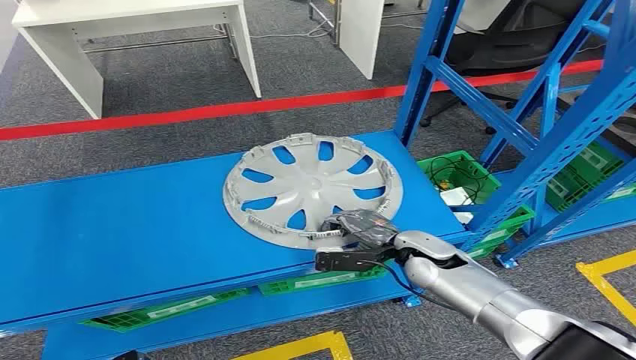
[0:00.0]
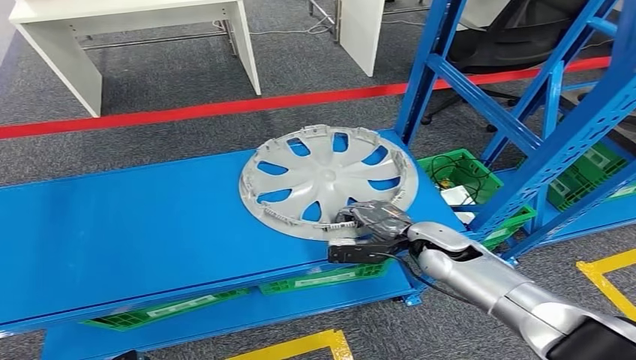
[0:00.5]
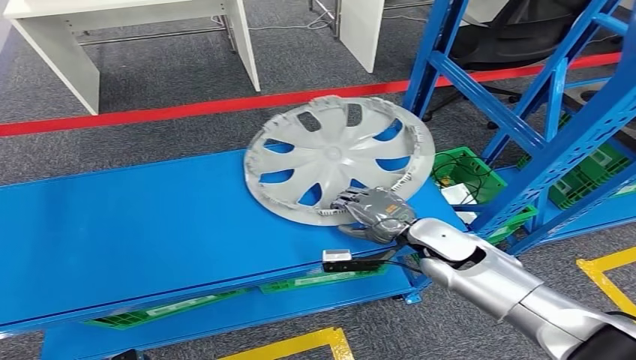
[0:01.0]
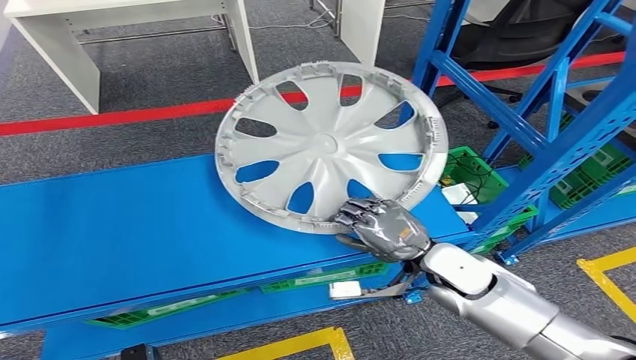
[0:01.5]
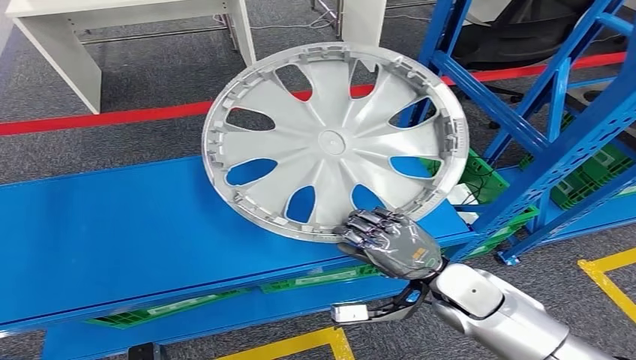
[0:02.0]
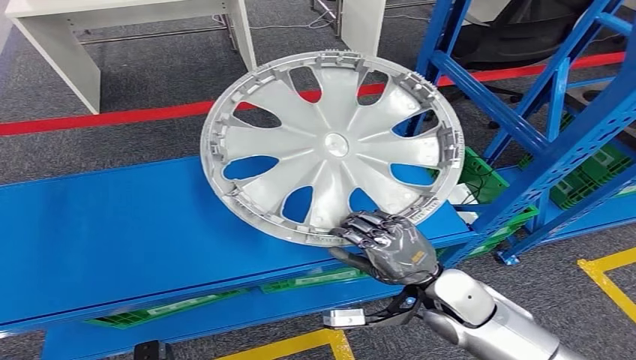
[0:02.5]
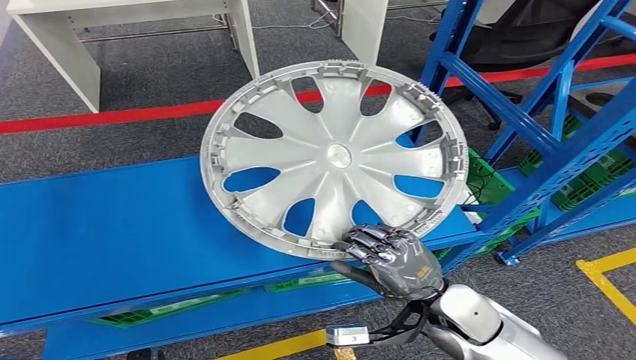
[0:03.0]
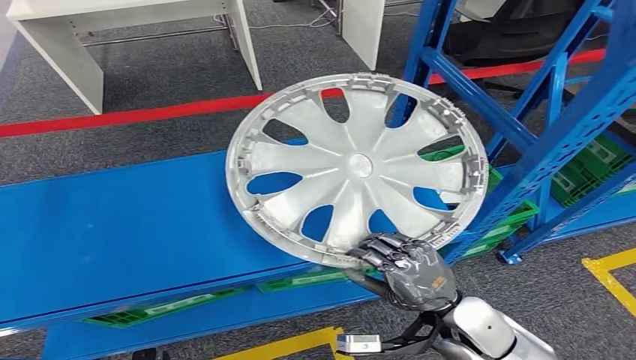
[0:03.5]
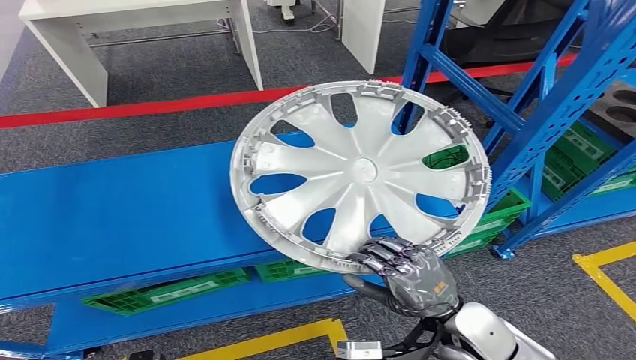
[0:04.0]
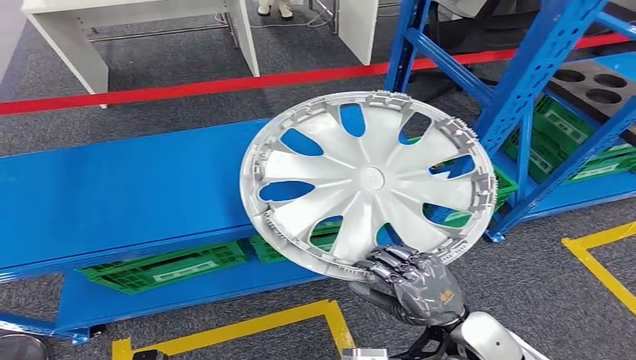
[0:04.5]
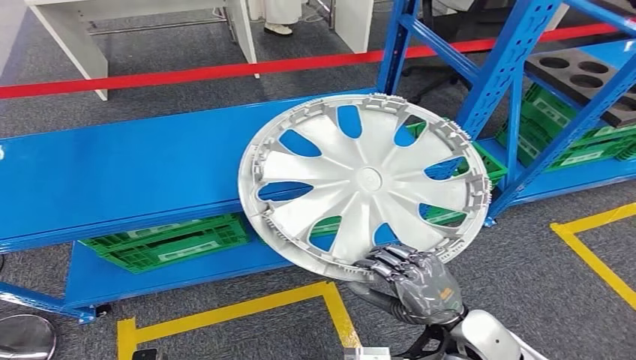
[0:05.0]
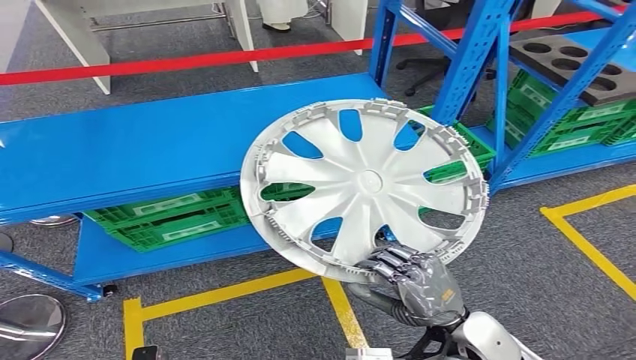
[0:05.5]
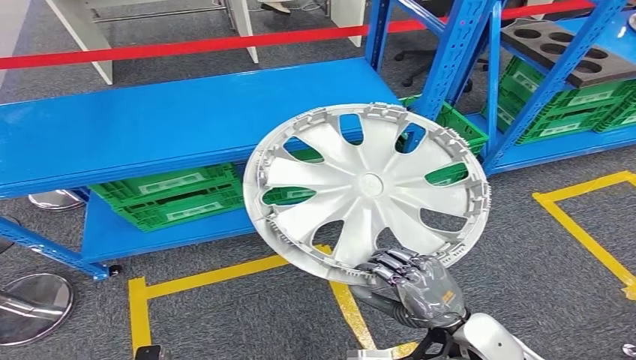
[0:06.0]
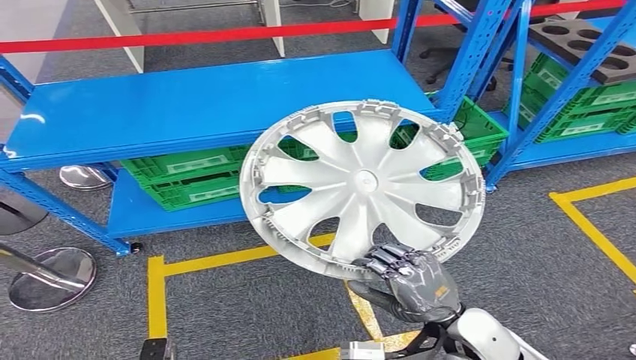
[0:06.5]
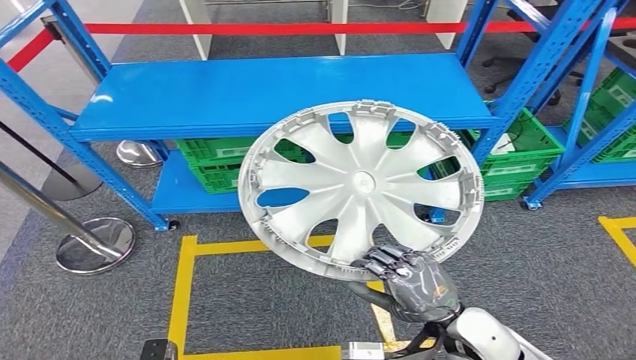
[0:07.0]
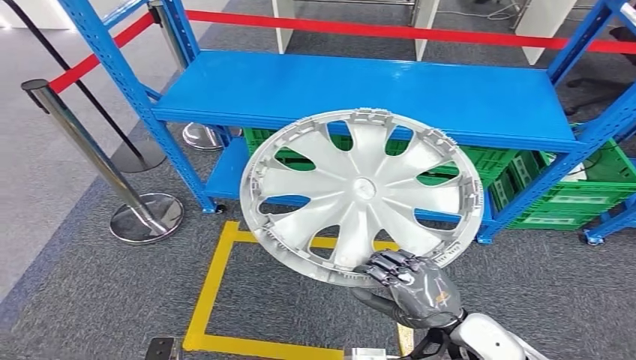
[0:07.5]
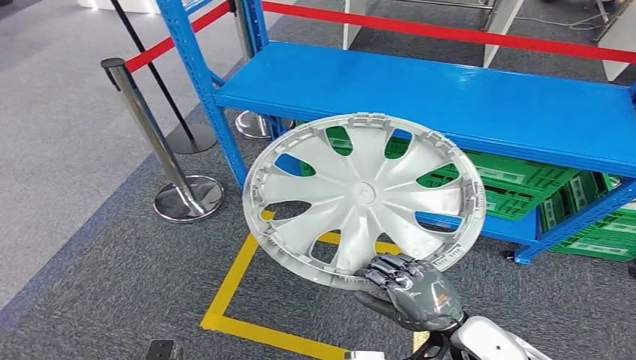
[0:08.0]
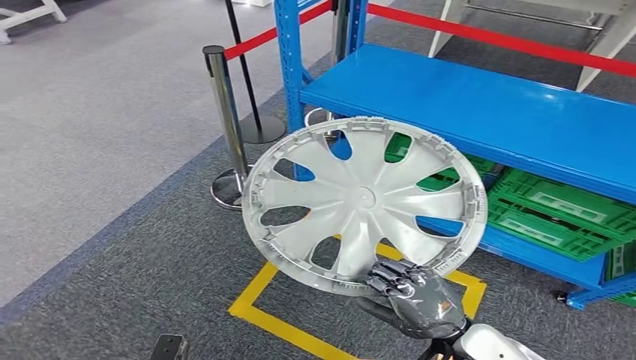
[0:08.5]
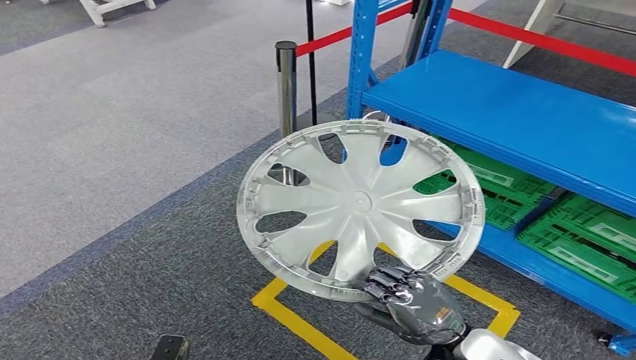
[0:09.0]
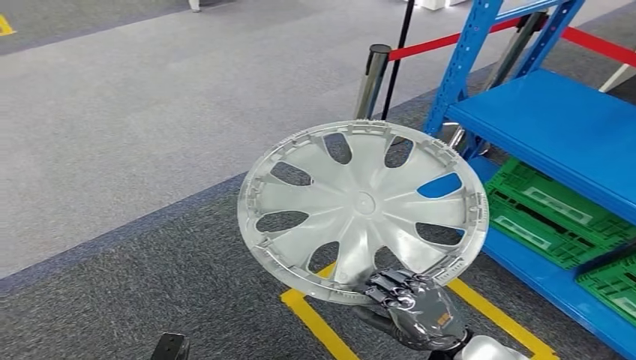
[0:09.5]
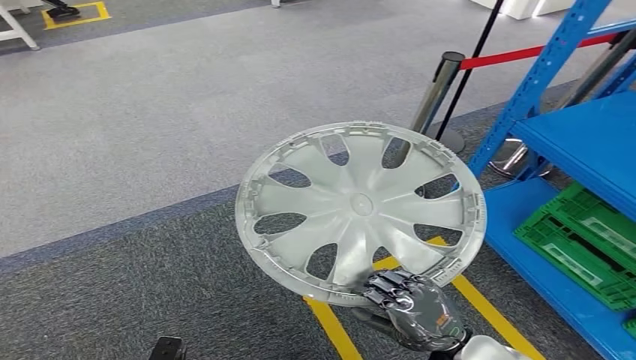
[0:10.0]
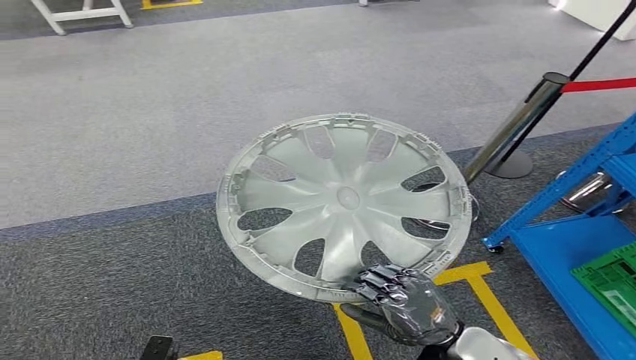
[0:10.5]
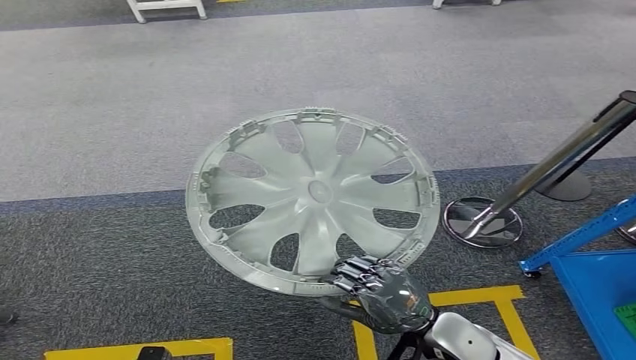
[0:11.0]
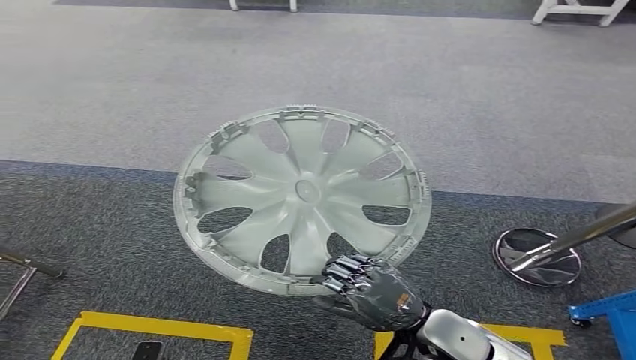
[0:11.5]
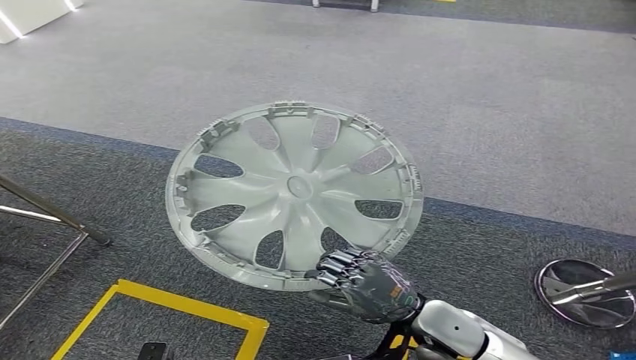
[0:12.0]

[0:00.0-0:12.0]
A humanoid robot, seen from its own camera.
Step, 0:00.0 to 0:02.0: Take small components from the rack.

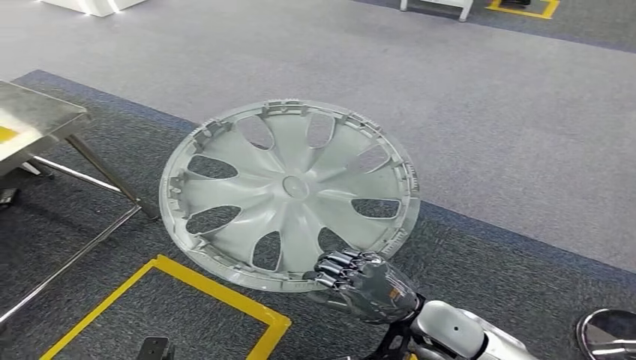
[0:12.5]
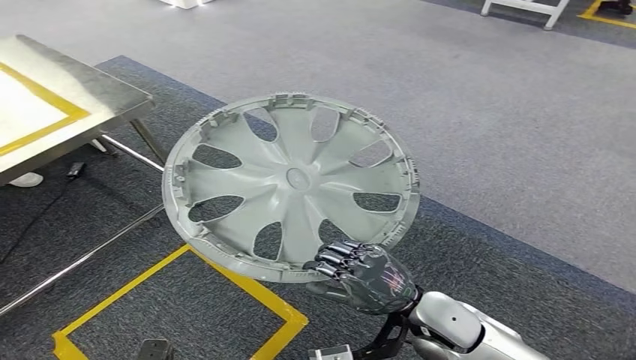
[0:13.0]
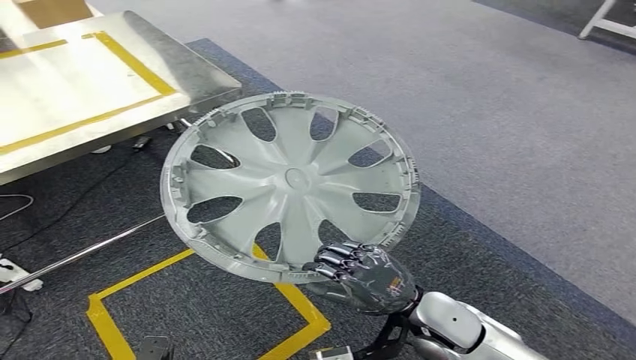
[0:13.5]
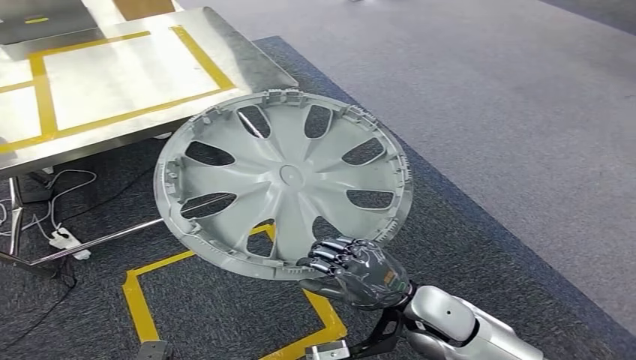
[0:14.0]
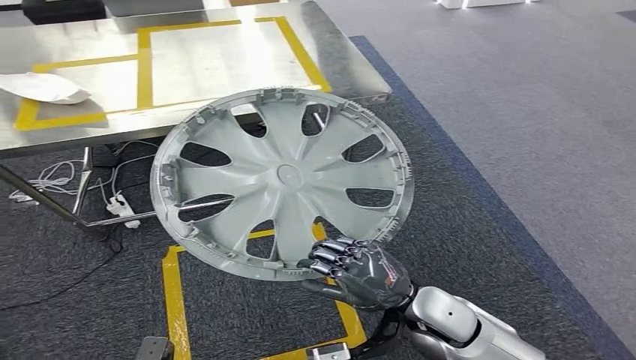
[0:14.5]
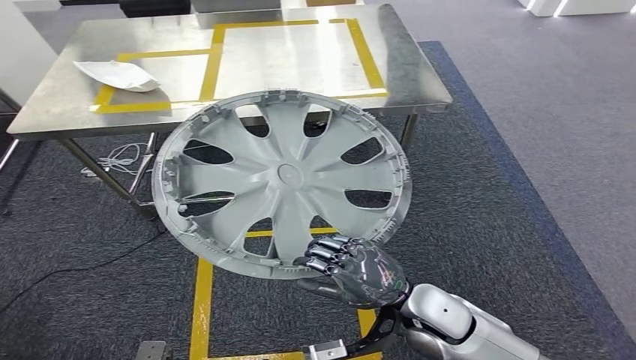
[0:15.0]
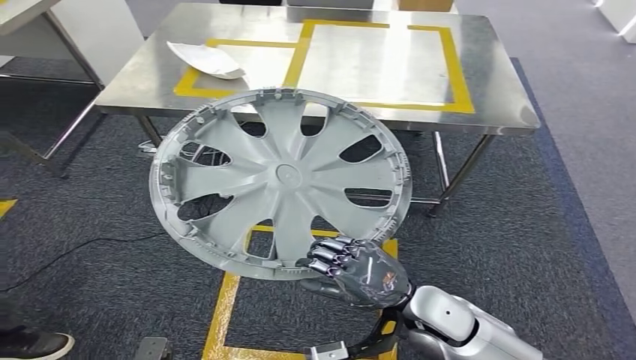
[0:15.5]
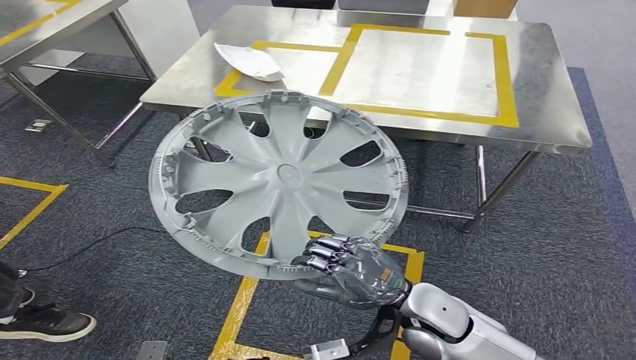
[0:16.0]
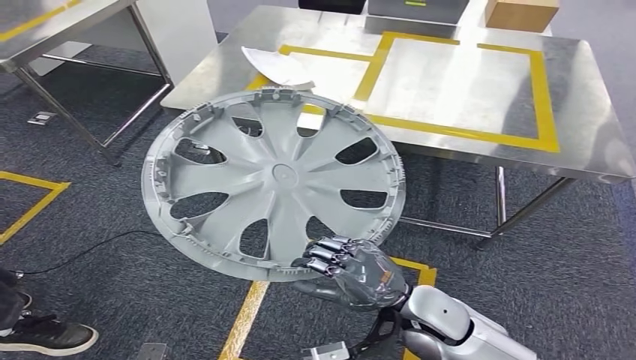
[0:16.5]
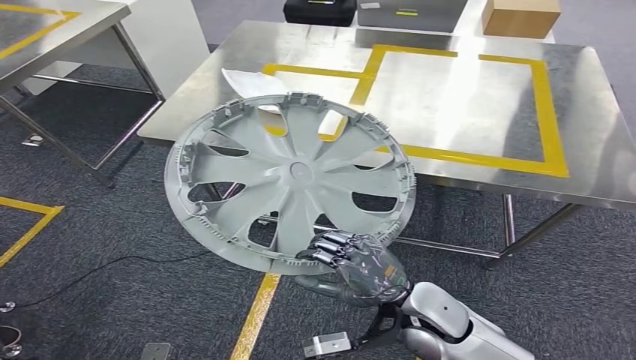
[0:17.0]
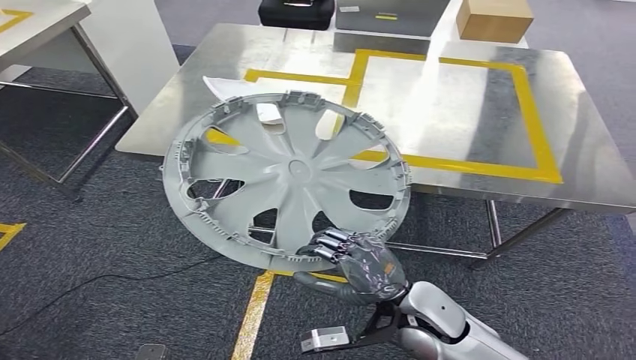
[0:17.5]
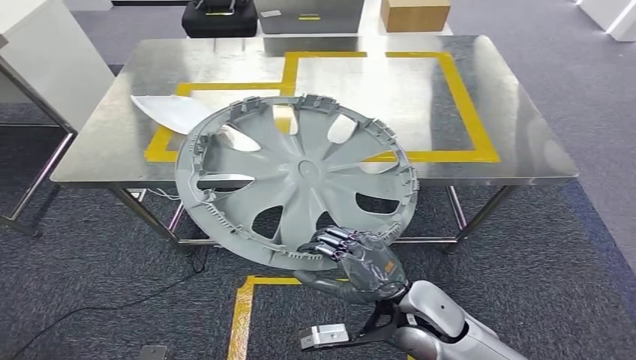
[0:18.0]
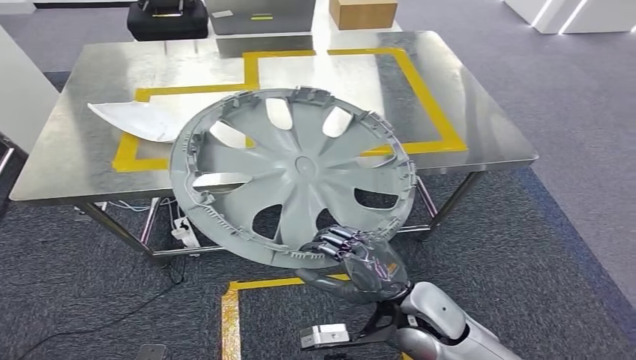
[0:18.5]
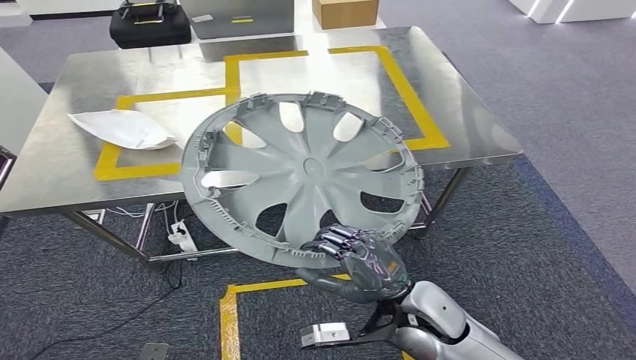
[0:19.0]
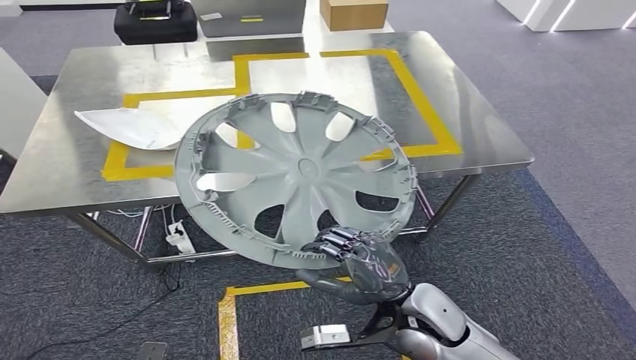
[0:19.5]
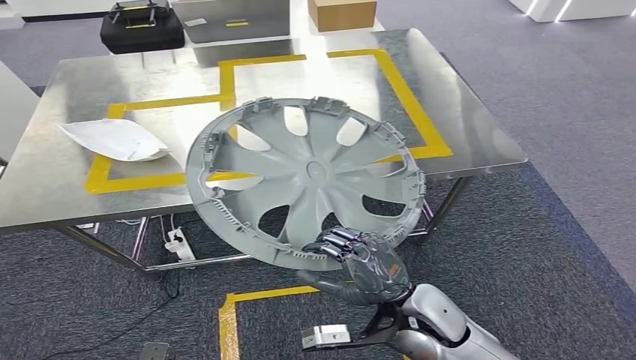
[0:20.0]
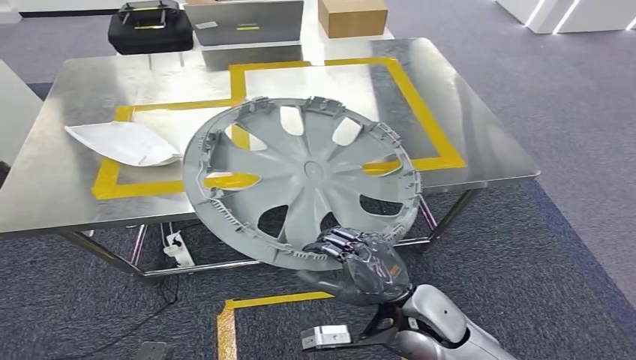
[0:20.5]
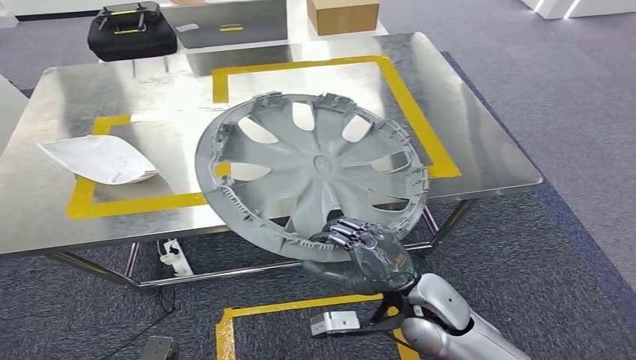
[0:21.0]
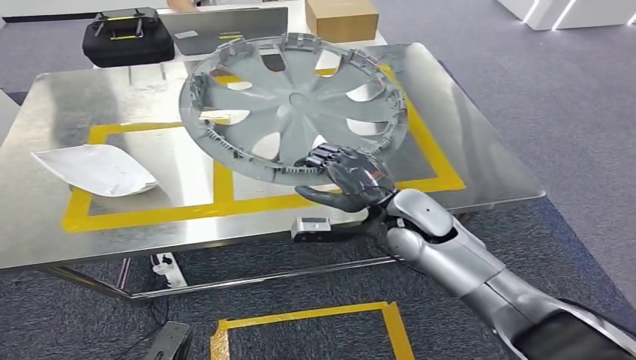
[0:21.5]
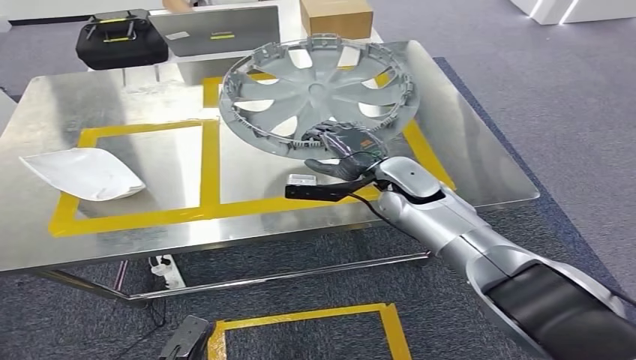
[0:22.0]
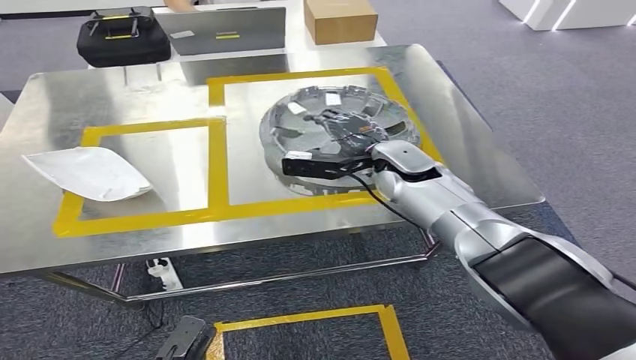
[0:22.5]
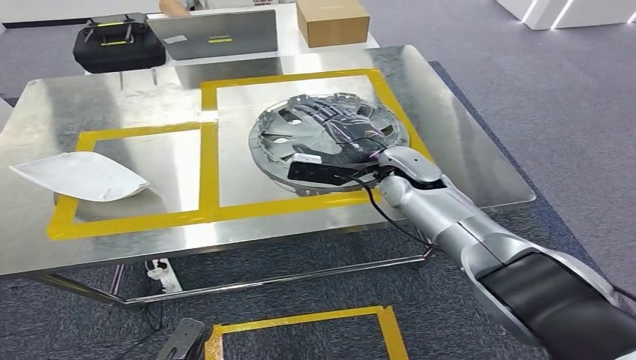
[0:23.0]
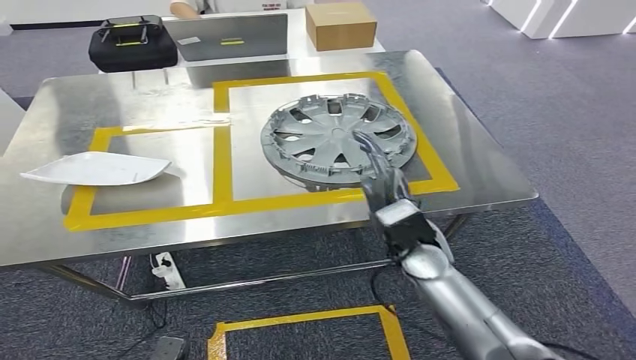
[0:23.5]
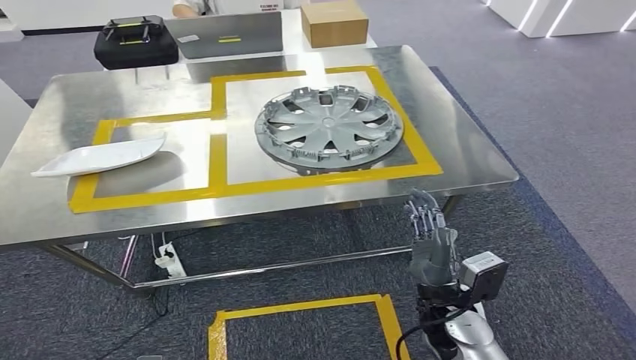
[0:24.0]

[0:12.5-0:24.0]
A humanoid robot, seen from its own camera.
Step, 0:12.5 to 0:18.0: Move the small parts to the workbench.
